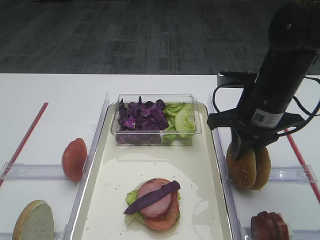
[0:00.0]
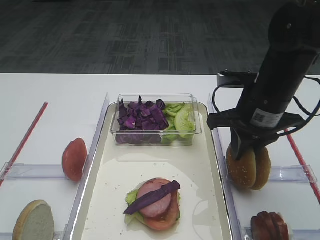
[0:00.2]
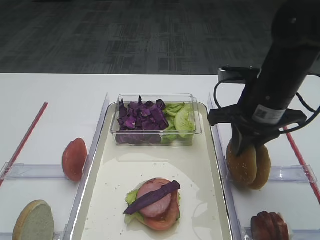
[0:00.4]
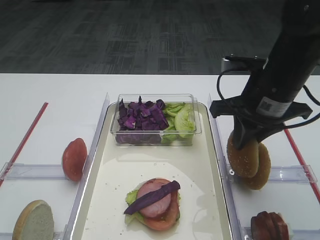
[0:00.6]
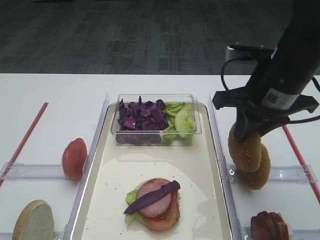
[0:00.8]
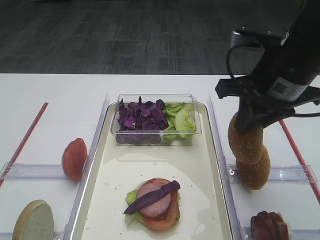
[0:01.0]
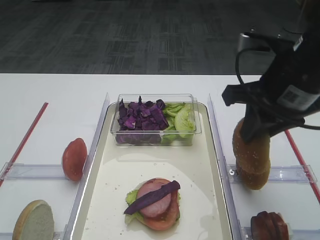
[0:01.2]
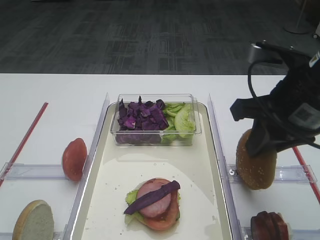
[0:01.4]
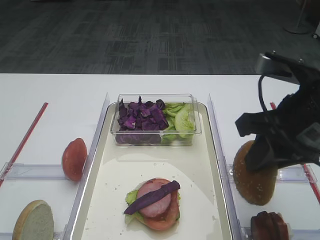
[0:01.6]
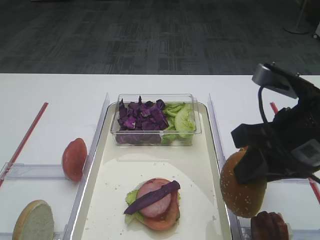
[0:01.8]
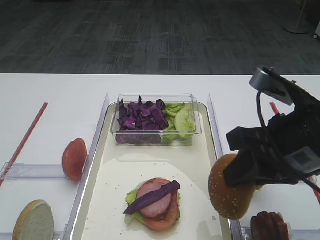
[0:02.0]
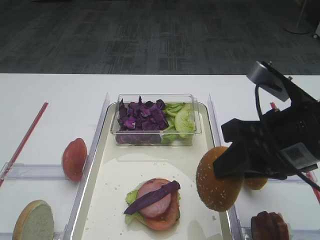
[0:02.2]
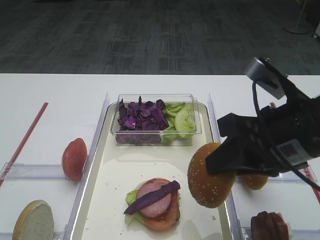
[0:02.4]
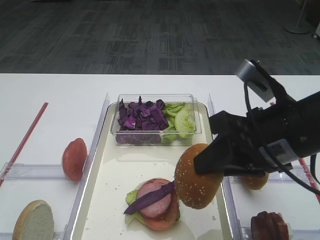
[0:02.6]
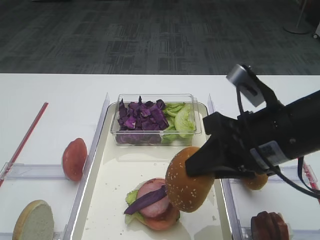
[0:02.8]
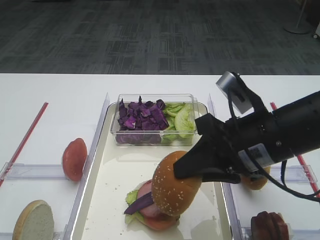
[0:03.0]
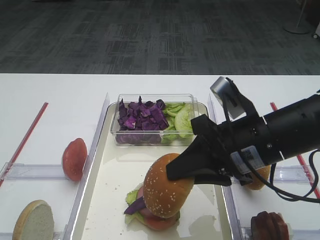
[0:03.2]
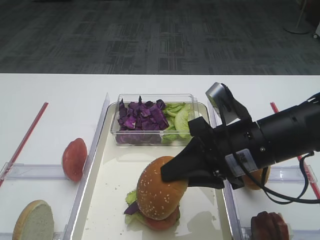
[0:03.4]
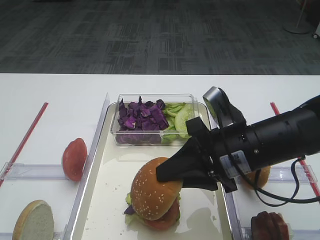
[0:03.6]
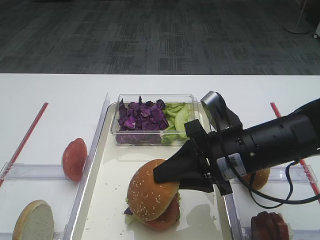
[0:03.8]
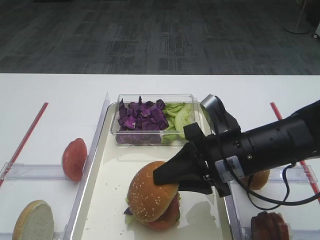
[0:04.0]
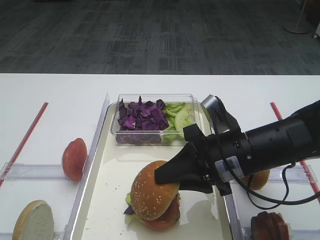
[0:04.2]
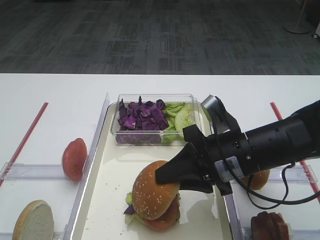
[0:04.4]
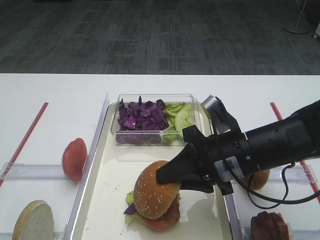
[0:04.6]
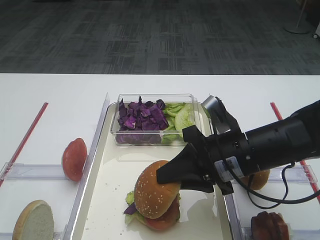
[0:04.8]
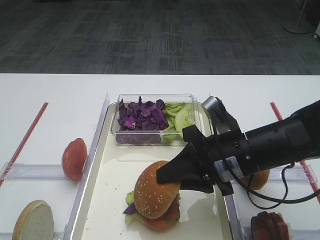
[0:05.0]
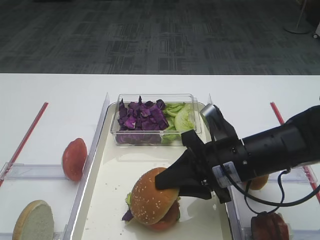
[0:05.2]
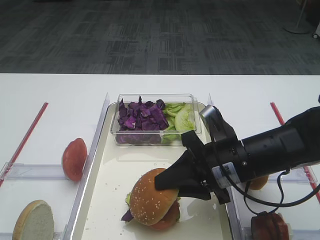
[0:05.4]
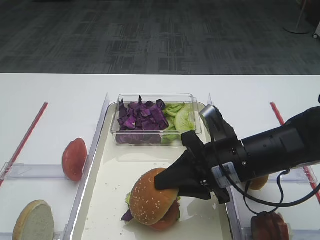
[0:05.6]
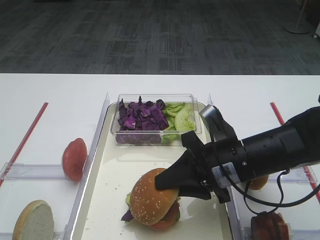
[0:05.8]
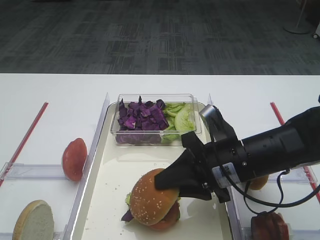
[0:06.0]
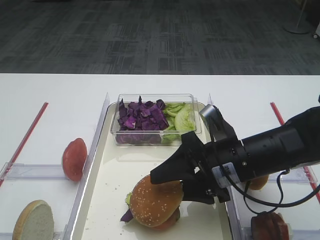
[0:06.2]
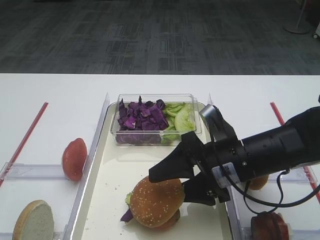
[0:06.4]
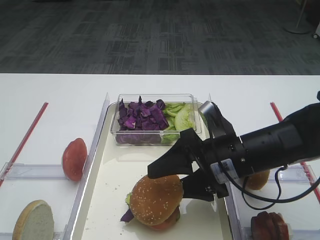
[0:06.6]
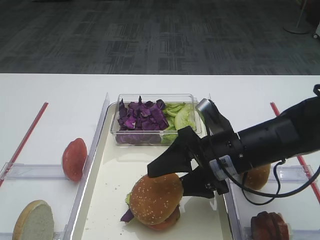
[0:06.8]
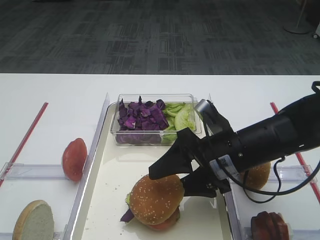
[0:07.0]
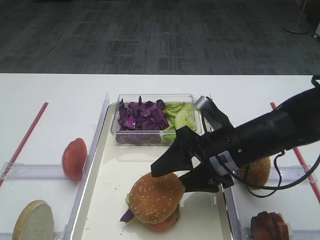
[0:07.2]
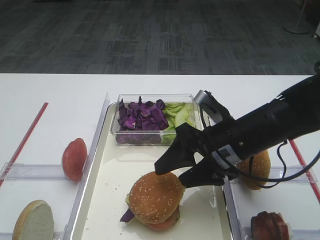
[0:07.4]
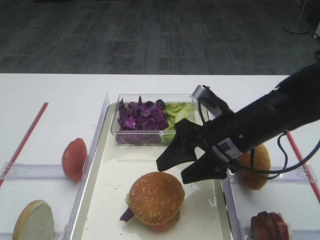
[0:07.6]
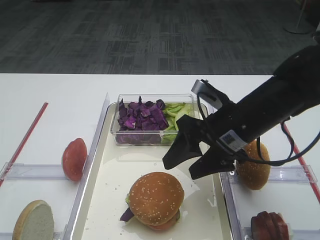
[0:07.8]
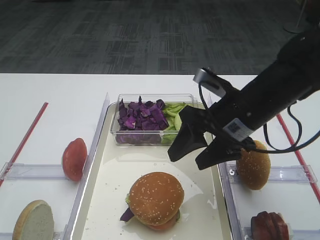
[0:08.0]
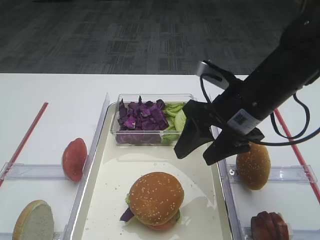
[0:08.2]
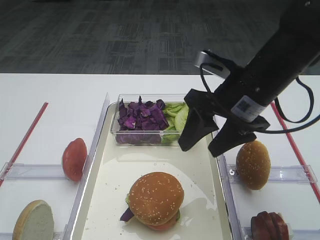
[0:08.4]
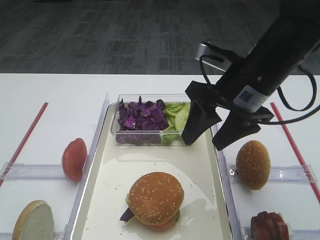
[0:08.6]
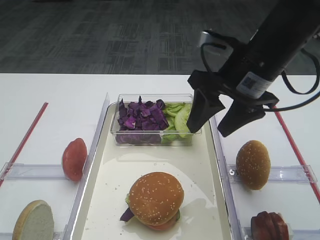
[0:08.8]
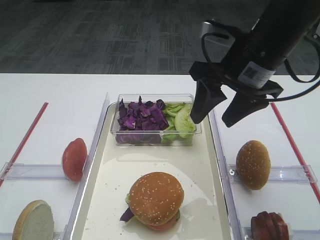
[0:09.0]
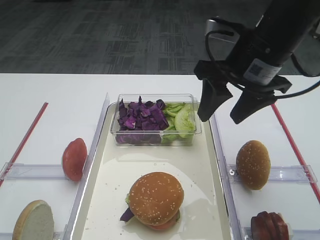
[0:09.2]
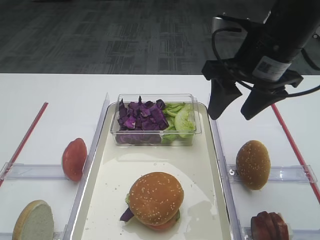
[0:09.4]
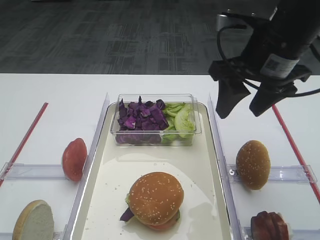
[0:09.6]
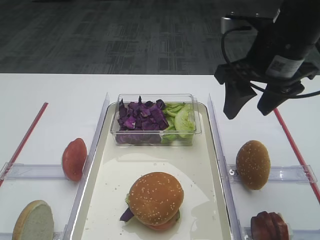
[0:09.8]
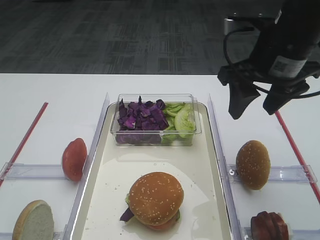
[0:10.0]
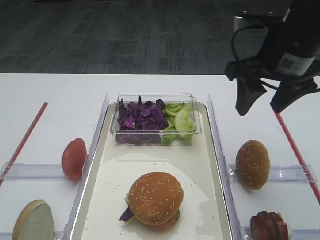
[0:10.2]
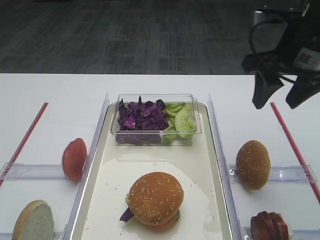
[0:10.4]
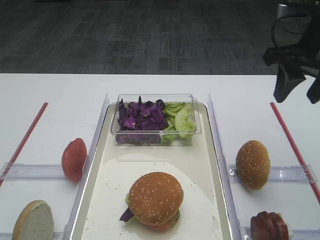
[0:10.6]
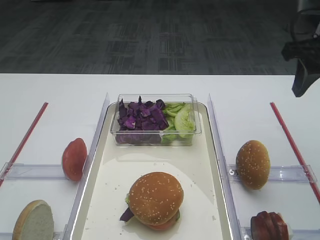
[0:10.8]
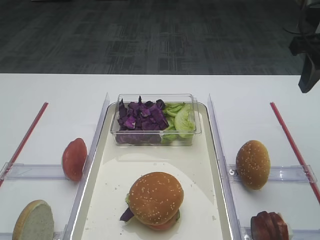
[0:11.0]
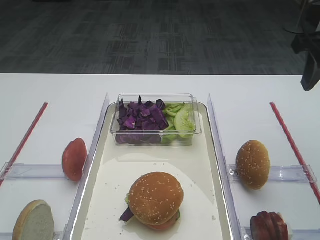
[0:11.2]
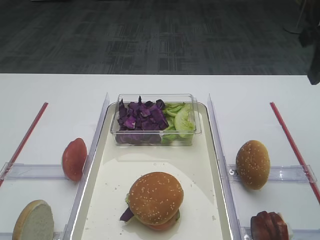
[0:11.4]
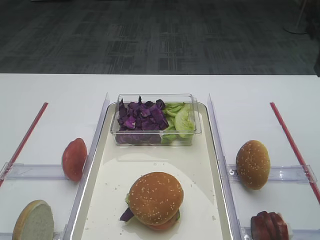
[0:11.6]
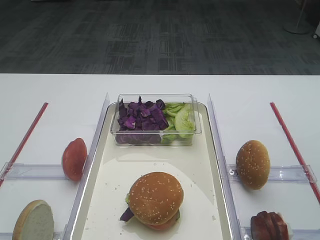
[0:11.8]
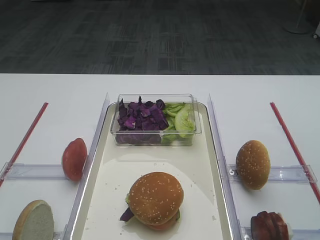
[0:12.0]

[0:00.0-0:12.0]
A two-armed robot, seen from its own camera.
Step, 1.4 to 7.6 s: Place the hamburger lid on the purple cabbage with the right gripper.
0.0 to 1.6 s: The right gripper heads backward and upward, covering roughly 10 cm.
1.6 to 3.0 s: The right gripper moves about 5 cm.
3.0 to 4.4 s: The right gripper goes some 5 cm downward.
4.4 to 6.0 s: The grippers move only a little.
6.0 to 7.6 s: The right gripper opens up.
7.6 to 9.0 s: The right gripper is displaced upward by roughly 10 cm.
9.0 to 10.4 s: The right gripper goes approximately 5 cm to the right.
10.4 to 12.0 s: The right gripper goes approximately 15 cm upward, backward and to the right.

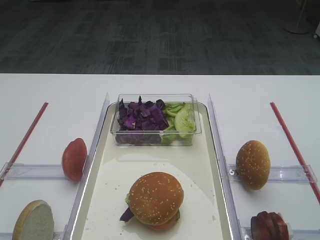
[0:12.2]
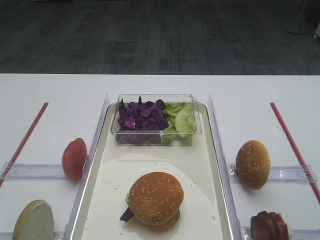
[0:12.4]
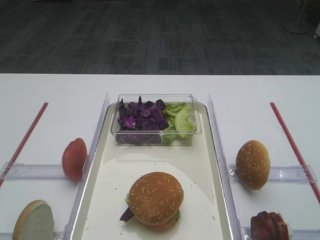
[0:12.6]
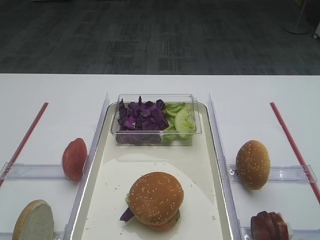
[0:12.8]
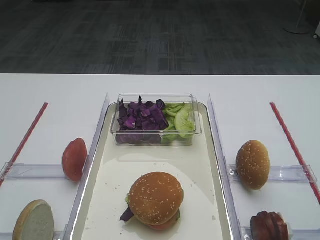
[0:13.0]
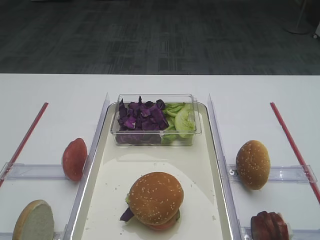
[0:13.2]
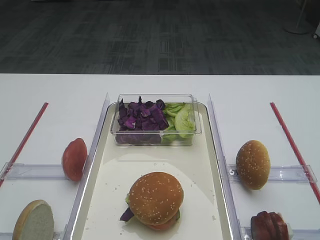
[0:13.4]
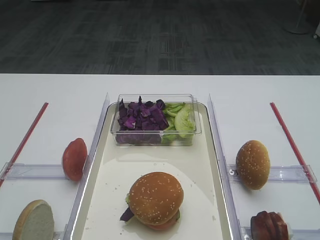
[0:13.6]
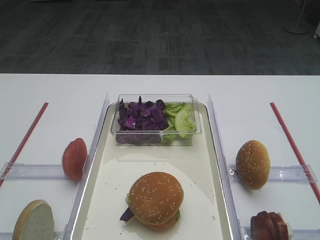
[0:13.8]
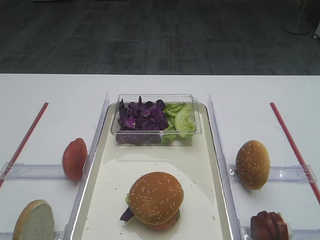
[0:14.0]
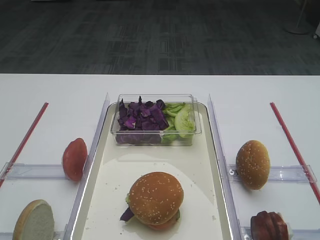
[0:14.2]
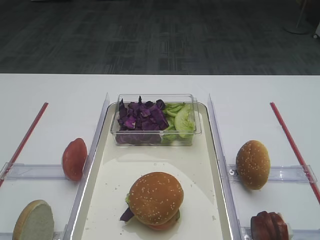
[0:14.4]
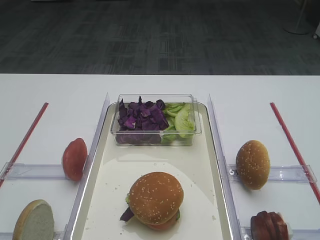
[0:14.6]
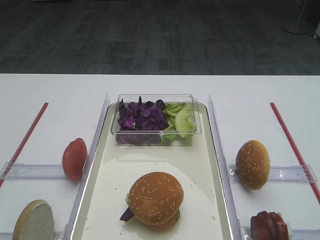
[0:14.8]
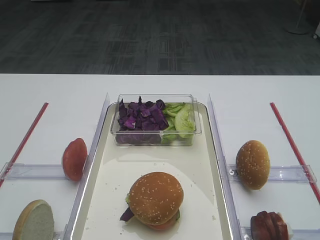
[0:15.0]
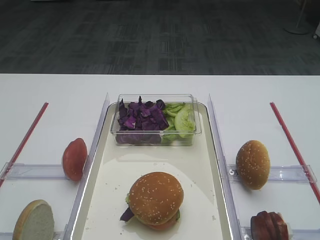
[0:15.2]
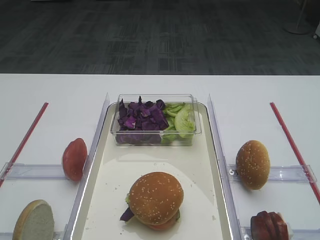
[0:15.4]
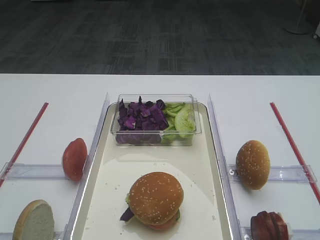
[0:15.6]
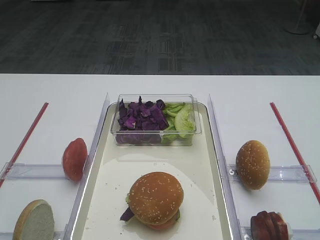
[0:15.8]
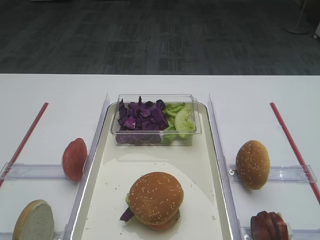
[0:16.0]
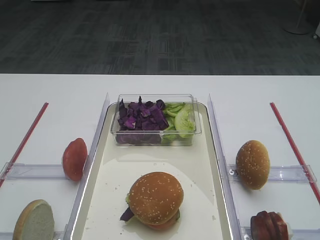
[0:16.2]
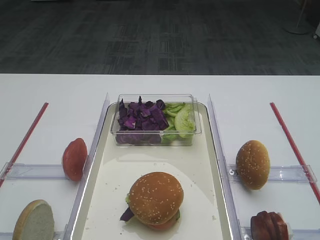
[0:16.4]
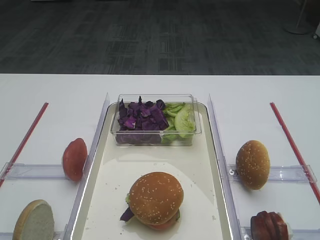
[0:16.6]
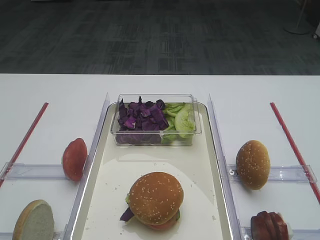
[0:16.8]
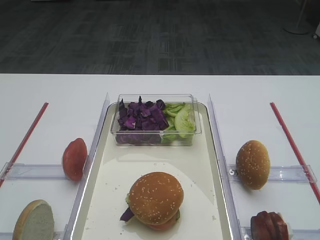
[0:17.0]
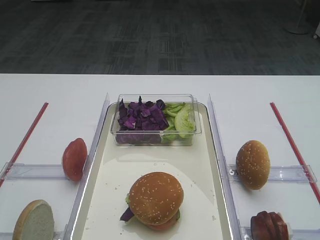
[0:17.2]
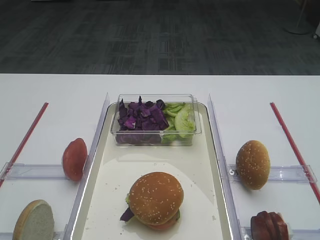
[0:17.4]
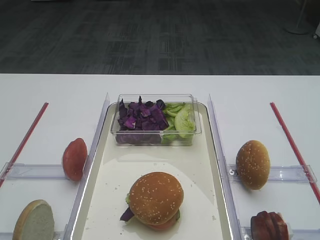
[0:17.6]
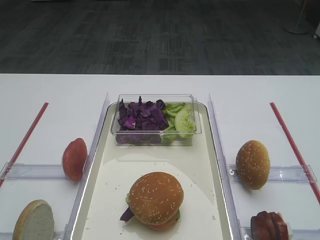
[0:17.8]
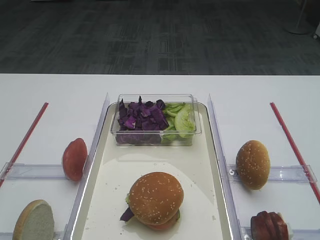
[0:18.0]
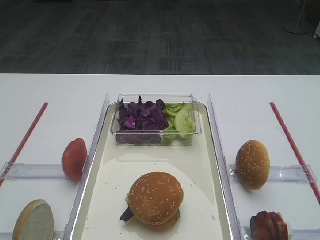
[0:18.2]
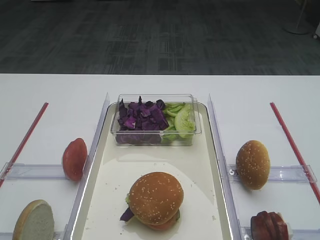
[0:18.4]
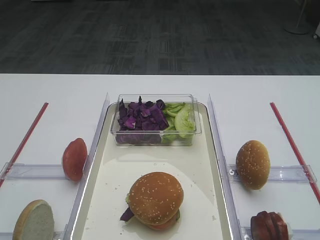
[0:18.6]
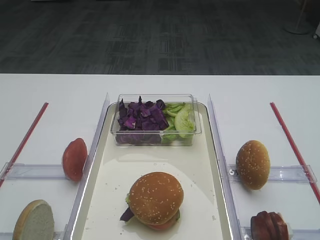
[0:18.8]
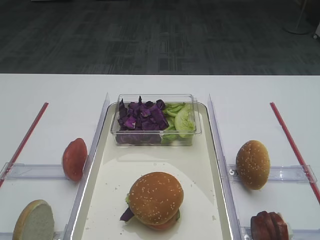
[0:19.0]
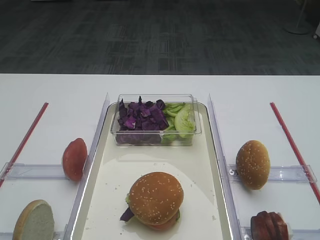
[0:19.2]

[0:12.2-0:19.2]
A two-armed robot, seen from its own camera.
15.0 to 19.2 s: Both grippers stay put.

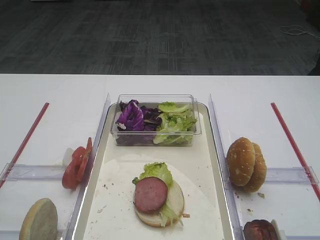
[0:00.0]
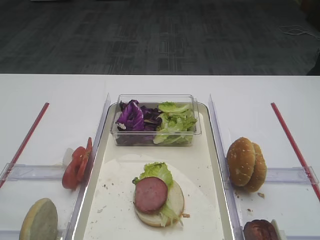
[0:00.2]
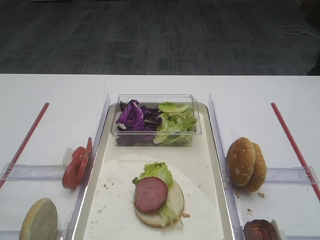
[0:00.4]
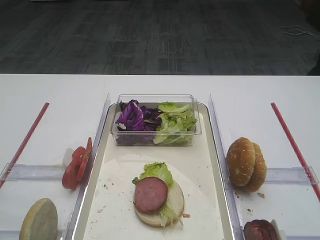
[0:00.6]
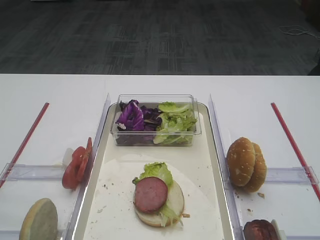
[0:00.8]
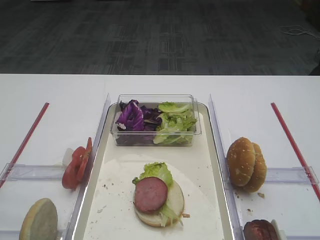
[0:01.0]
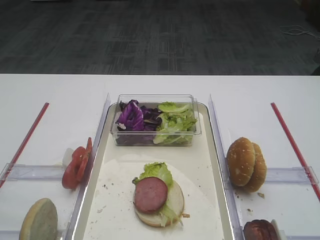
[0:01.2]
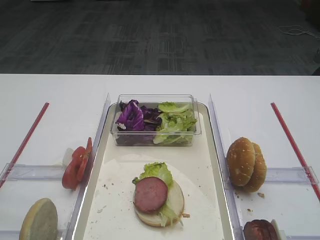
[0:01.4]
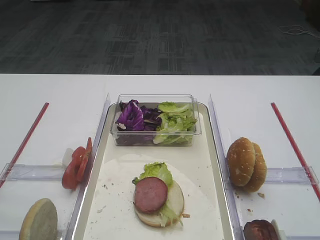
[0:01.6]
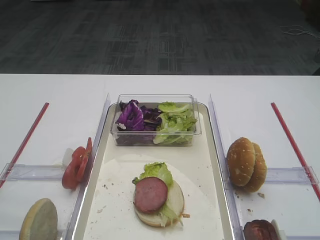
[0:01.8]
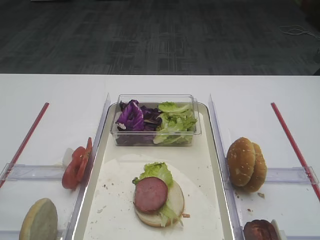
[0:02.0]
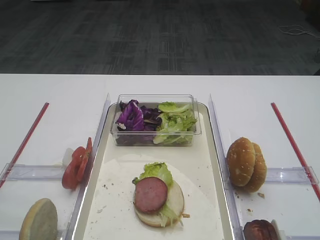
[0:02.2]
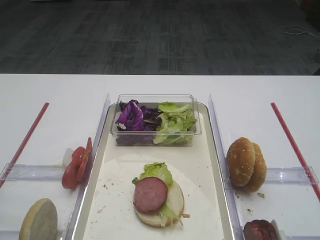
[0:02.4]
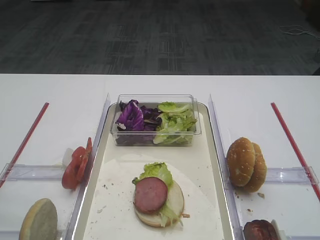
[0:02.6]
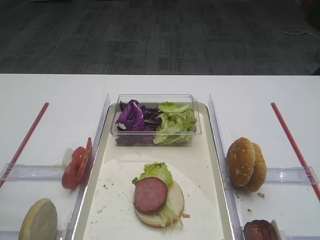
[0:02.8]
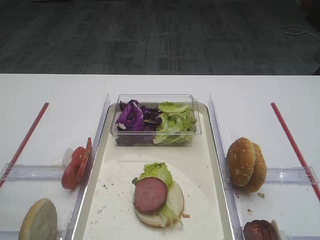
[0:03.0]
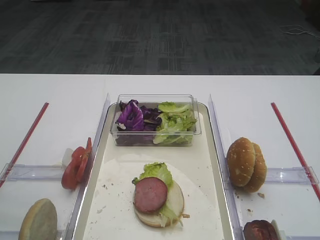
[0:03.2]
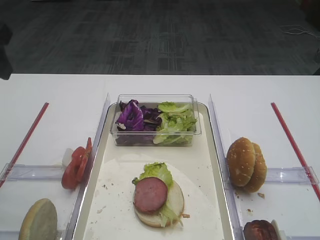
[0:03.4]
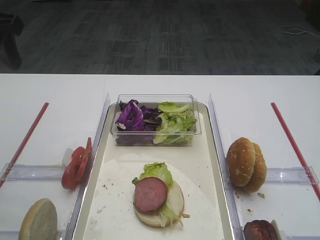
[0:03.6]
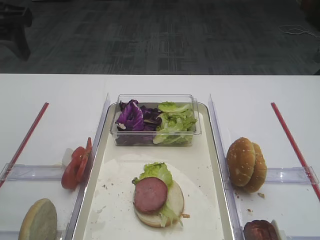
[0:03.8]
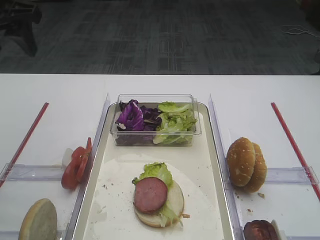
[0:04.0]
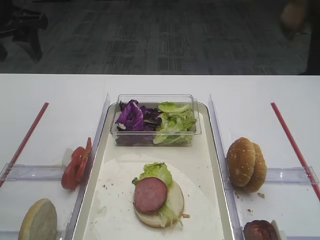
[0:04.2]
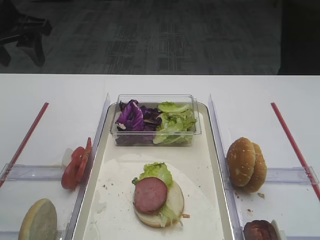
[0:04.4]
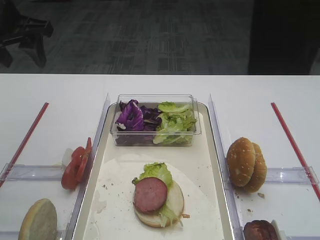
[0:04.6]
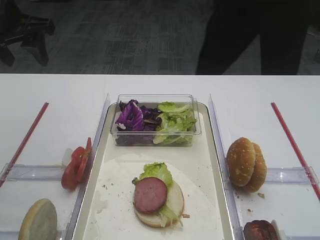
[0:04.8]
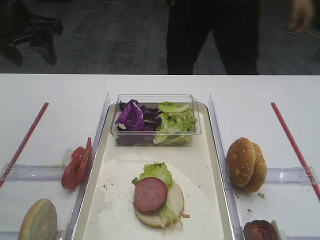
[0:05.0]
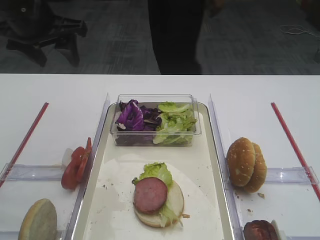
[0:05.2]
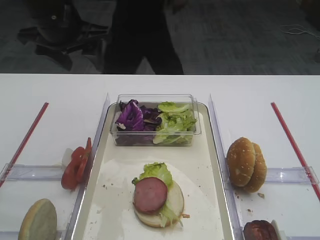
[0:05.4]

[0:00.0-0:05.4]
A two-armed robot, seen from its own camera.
2.8 to 4.0 s: The left gripper goes about 20 cm forward.
4.0 to 5.4 s: The left gripper heads to the right, covering approximately 10 cm.
